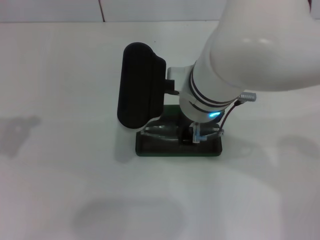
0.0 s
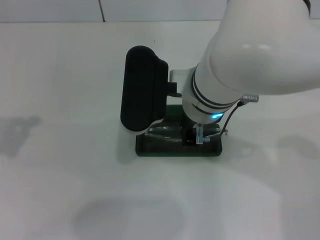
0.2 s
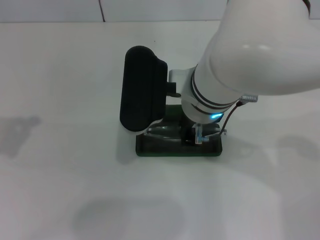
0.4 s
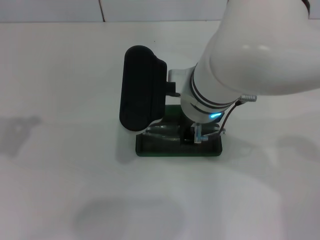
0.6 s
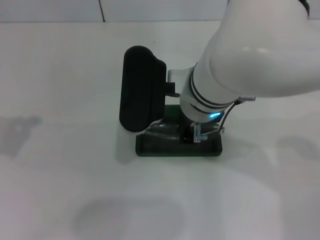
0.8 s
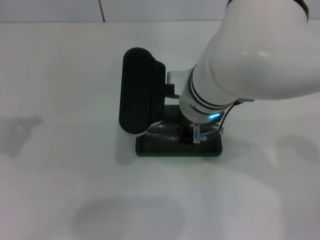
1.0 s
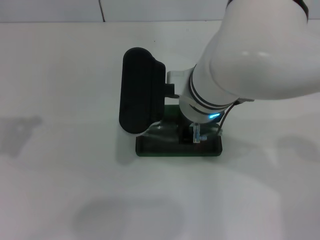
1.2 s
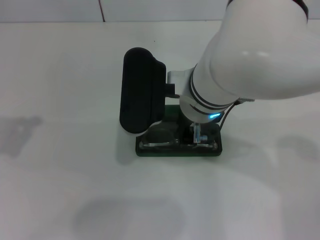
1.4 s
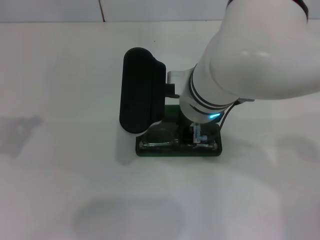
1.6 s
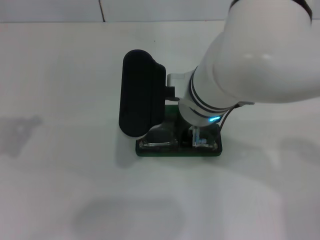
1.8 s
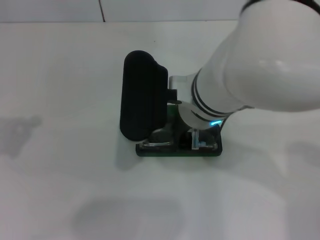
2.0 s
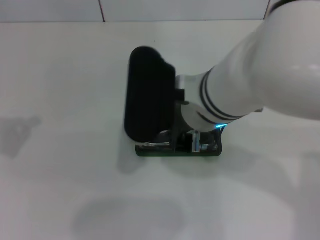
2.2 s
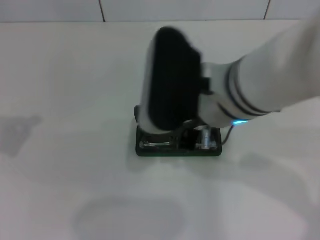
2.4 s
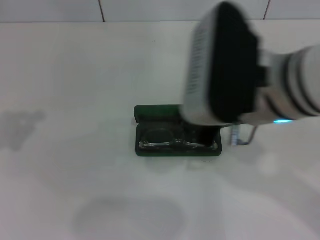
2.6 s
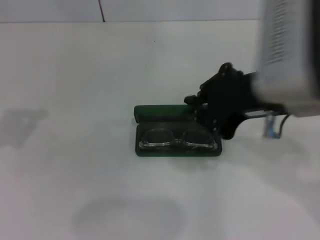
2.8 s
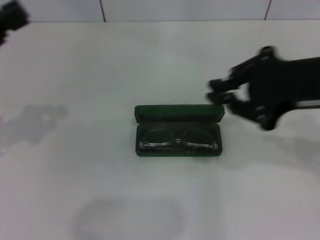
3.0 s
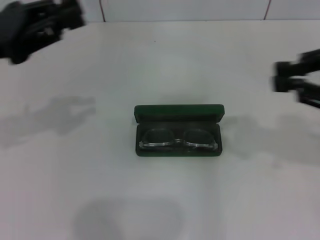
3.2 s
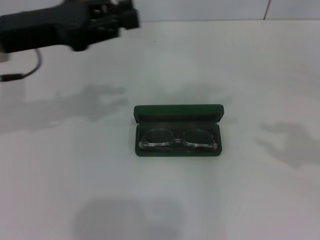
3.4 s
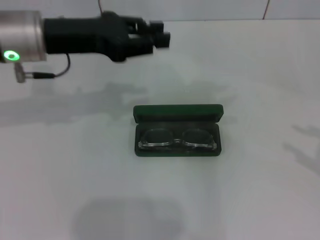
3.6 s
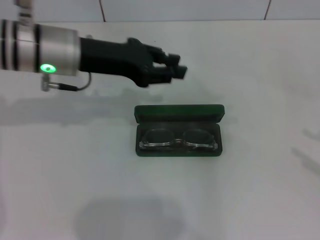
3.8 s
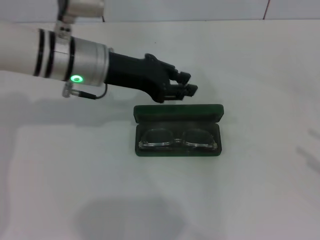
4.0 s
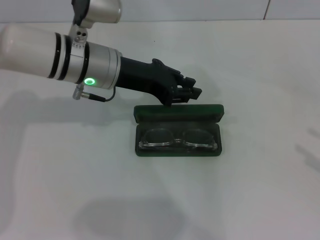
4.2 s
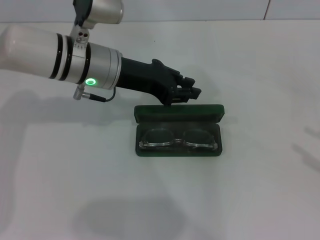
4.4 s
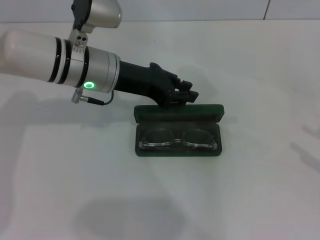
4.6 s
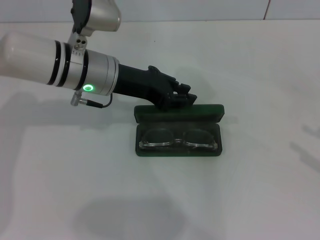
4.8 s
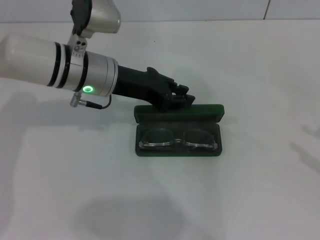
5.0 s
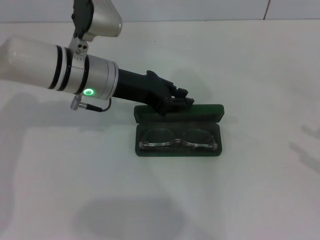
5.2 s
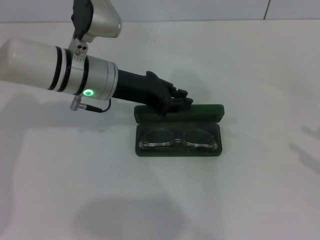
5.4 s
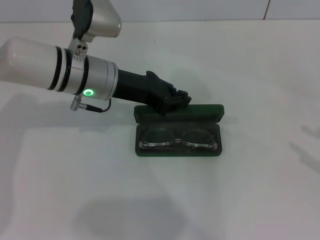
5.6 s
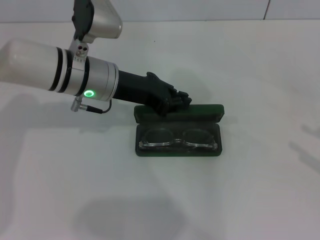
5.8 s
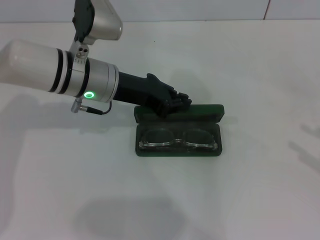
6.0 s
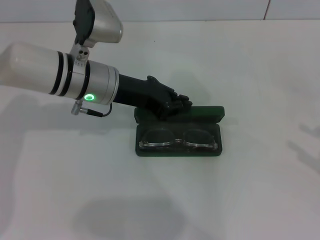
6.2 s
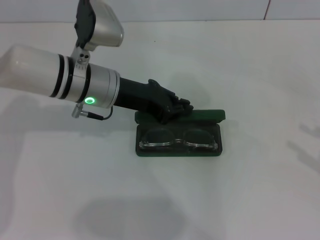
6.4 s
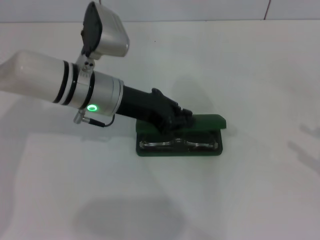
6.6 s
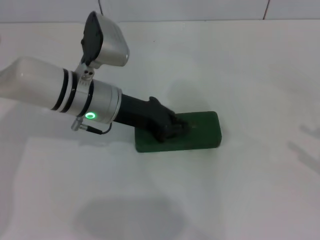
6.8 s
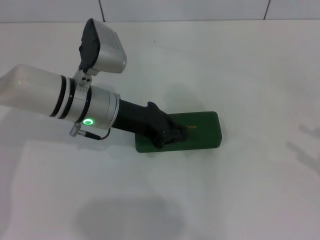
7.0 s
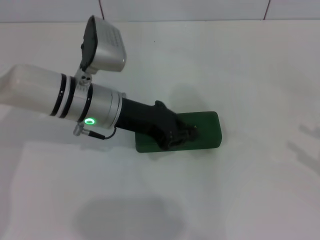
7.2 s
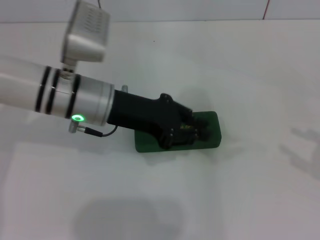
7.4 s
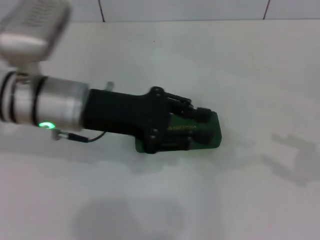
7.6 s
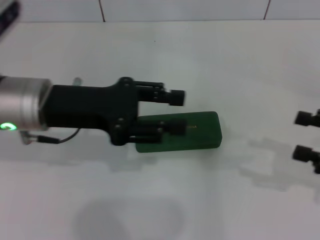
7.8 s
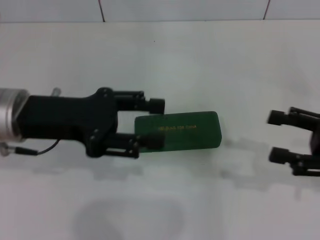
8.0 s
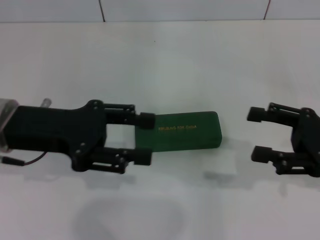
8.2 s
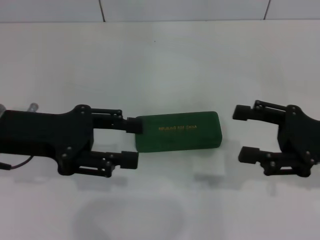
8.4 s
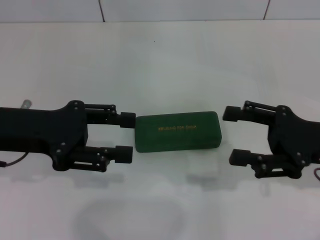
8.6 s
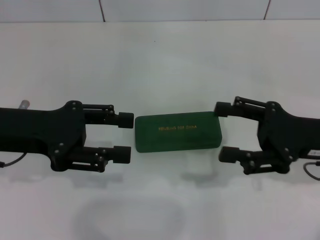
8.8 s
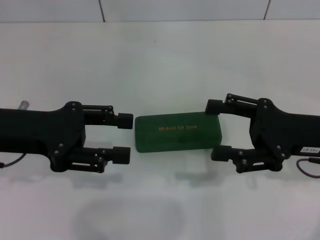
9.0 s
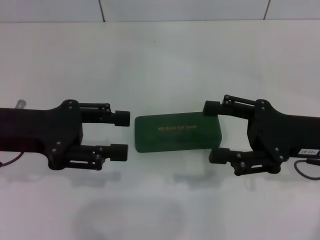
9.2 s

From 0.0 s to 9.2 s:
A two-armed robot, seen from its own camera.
Step, from 1.8 s to 7.0 s: Close the glasses case with your left hand.
From 0.0 s to 1.6 s: The two grippers keep their place.
From 1.6 s to 3.0 s: The left gripper ends up approximately 5 cm from where it was. The right gripper heads to the right and upward, covering approximately 20 cm.
From 3.0 s to 4.6 s: The right gripper moves to the right and downward, roughly 25 cm, and opens. The left gripper is displaced to the right and forward by approximately 20 cm.
From 4.6 s to 6.2 s: There are only small adjustments of the grippers.
From 6.2 s to 7.6 s: The left gripper is displaced backward by about 5 cm.
From 7.6 s to 9.2 s: The left gripper travels to the left by some 10 cm, and opens up; the right gripper shifts approximately 15 cm to the left and forward.

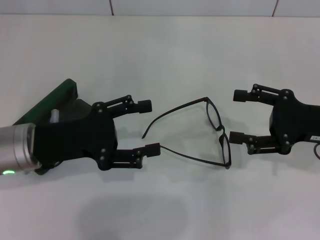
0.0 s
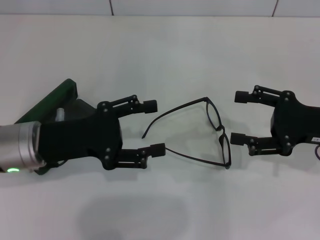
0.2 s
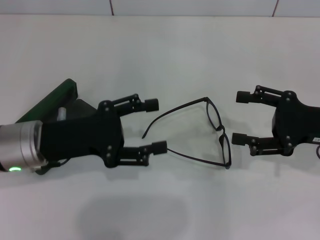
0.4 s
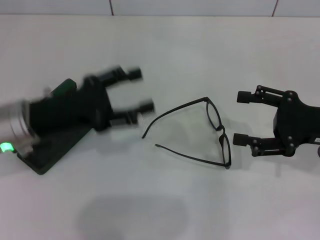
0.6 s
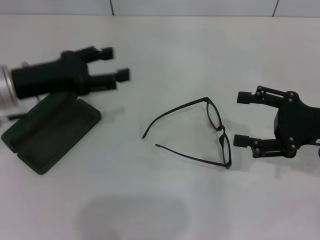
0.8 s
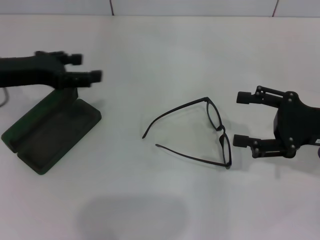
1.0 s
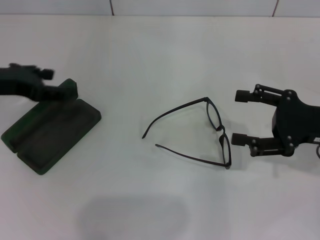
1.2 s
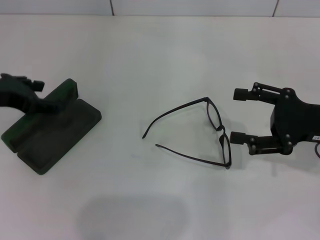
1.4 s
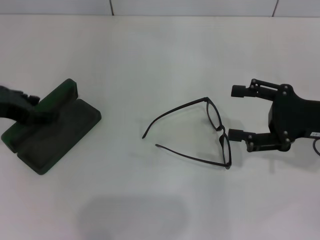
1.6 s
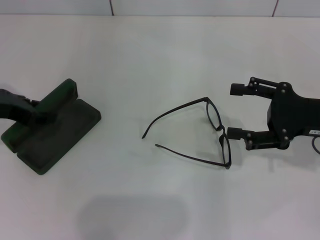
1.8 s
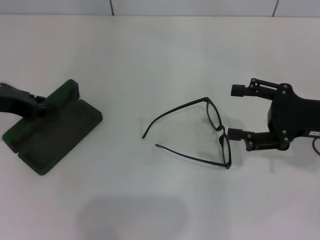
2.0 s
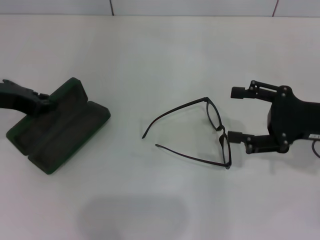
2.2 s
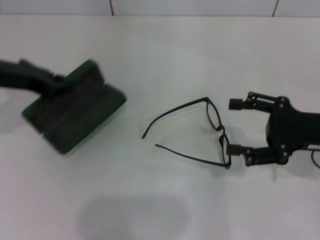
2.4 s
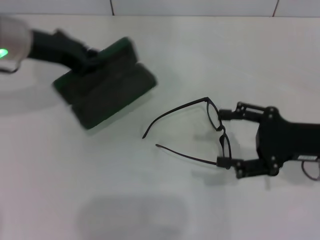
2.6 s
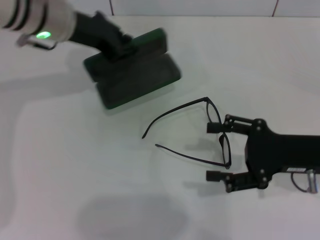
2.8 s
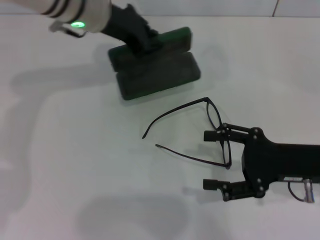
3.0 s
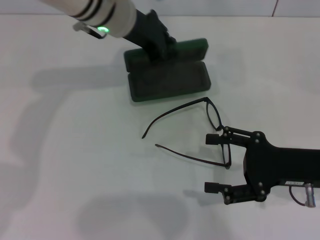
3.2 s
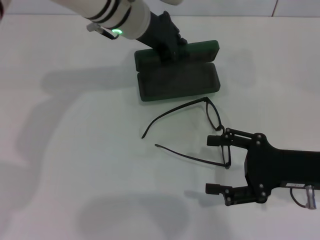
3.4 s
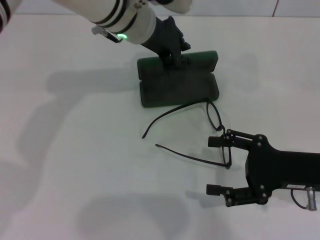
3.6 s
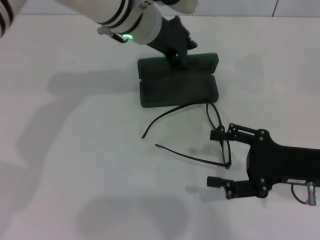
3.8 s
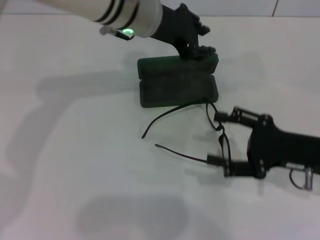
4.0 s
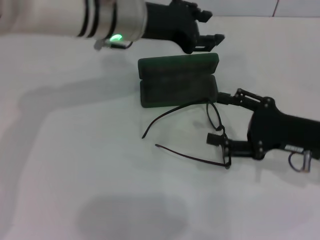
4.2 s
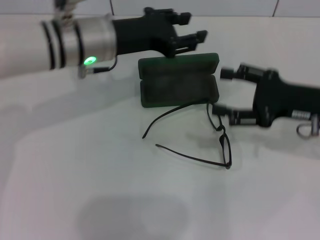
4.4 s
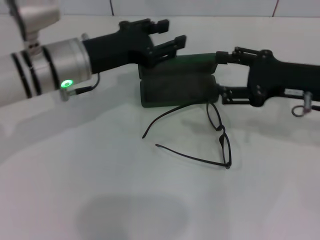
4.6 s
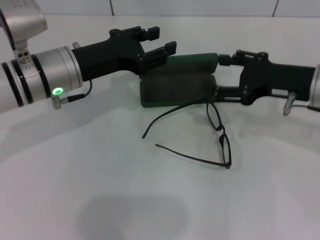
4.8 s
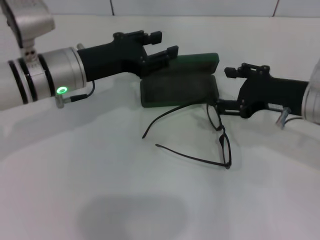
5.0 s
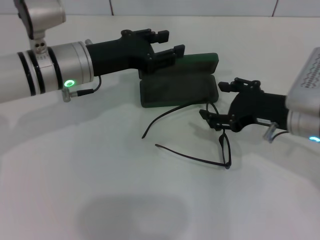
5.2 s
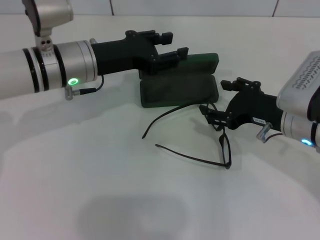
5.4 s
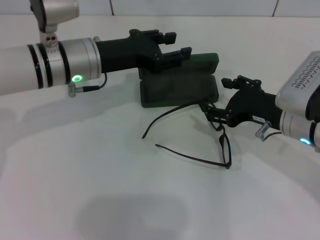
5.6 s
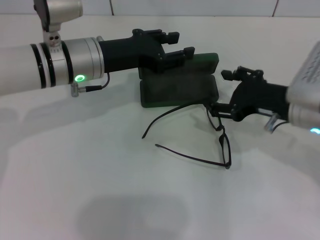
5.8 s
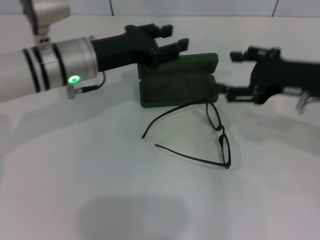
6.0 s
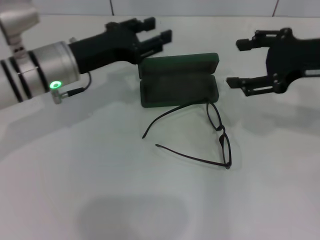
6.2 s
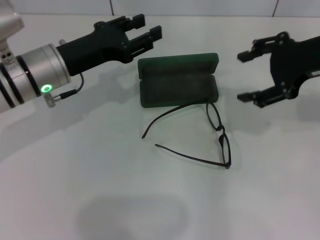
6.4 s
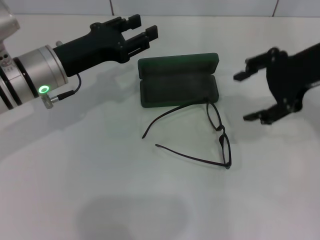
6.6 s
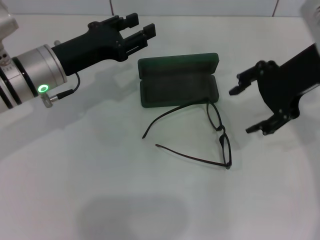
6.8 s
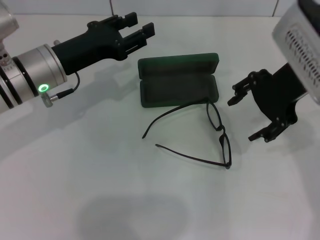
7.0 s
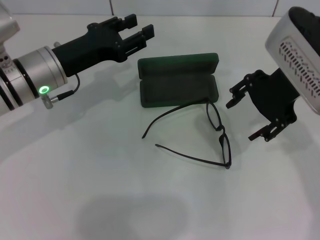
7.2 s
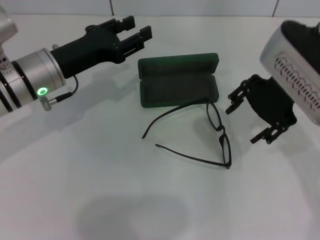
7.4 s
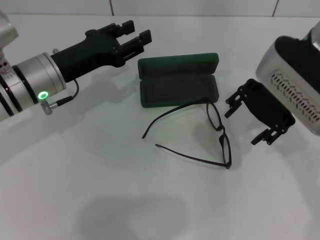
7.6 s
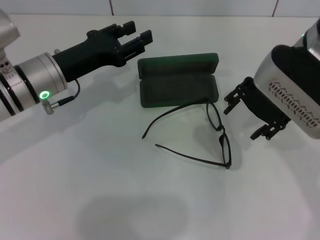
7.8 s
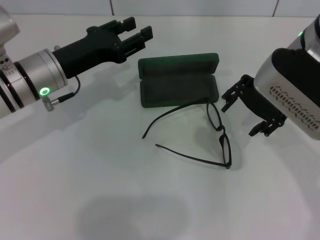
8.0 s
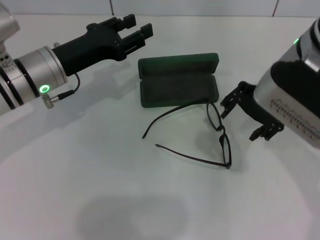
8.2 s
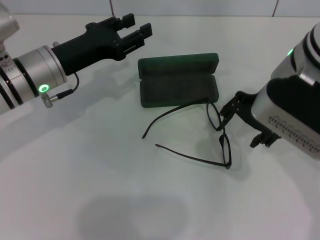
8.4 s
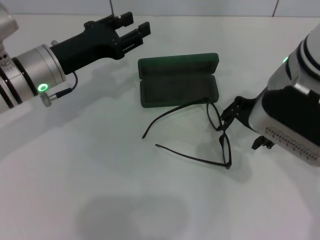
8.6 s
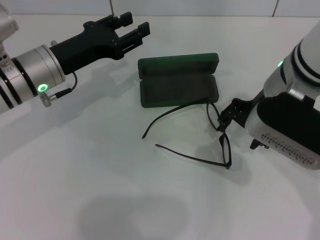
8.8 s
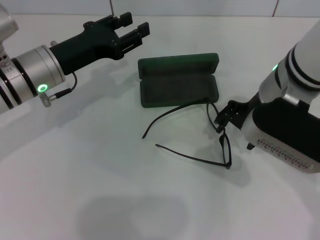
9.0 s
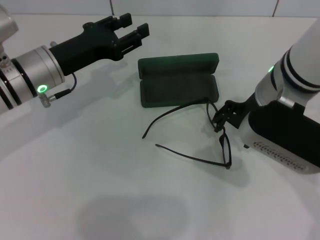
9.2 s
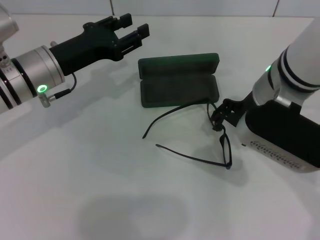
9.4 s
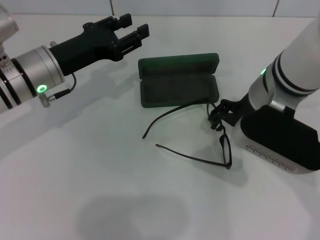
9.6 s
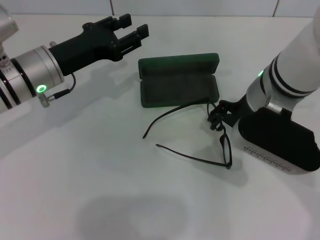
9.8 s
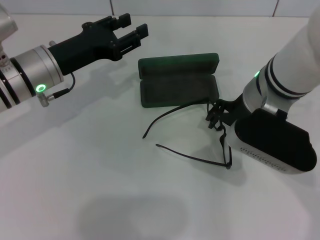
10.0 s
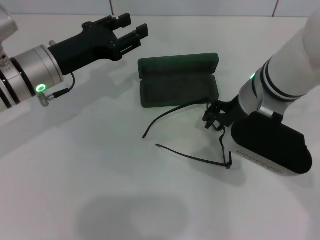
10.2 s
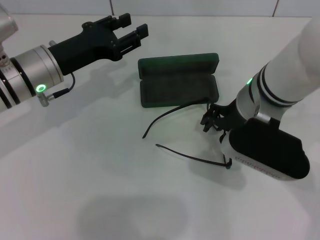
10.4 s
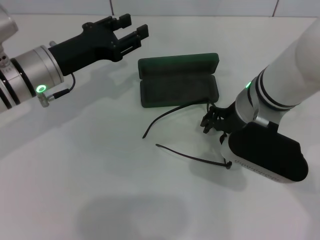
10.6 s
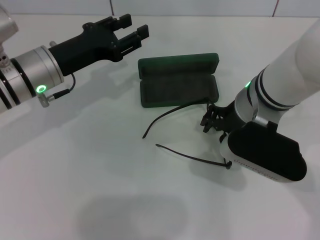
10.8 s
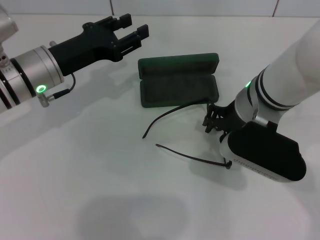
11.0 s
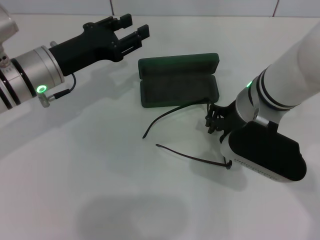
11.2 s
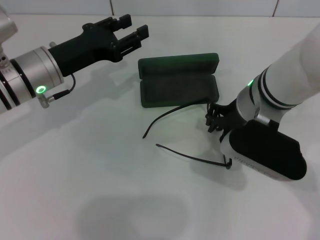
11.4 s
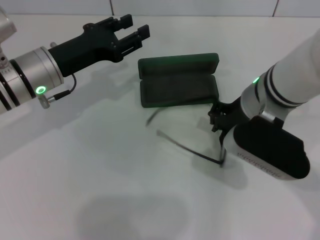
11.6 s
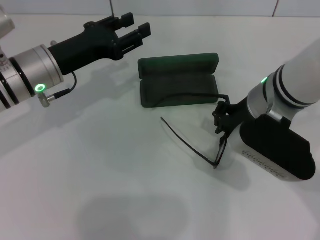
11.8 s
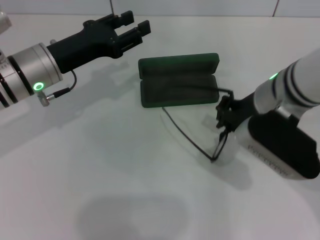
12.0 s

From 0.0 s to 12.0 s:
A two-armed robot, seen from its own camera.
Step, from 0.0 s to 1.8 s: Grab the glasses case with your left hand.
Step, from 2.0 s to 3.8 s: Place the glasses case in the center of the table with your left hand.
Step, from 4.0 s to 11.4 s: Grab the eyeglass frame with your right hand.
From 0.0 s to 1.6 s: The left gripper travels to the left and upward by approximately 10 cm.
From 1.6 s to 3.0 s: The right gripper changes place by some 5 cm. The left gripper is displaced to the right and forward by some 20 cm, and closes.
From 3.0 s to 4.4 s: The right gripper is displaced forward by approximately 5 cm, while the left gripper goes approximately 5 cm backward, and opens up.
From 4.4 s to 6.0 s: The right gripper changes place by approximately 5 cm.
From 6.0 s to 7.6 s: The left gripper shifts by about 5 cm; the right gripper shifts some 10 cm to the left and upward.
From 9.0 s to 10.4 s: The grippers stay close to where they were, moving slightly.
From 10.4 s to 12.0 s: The right gripper closes its fingers.

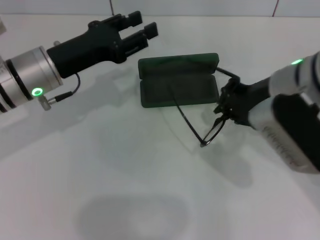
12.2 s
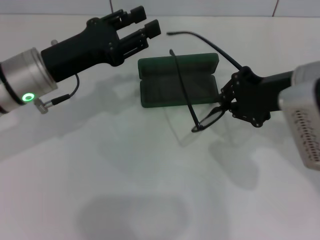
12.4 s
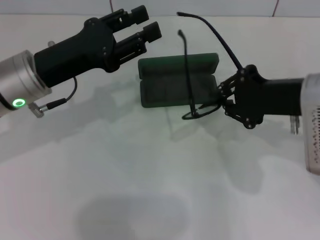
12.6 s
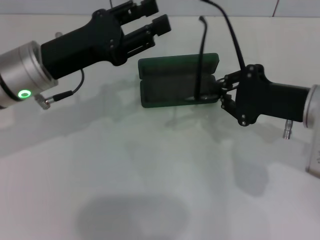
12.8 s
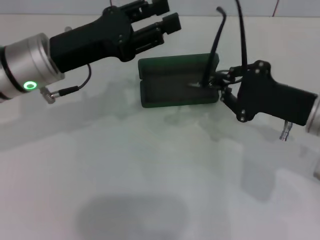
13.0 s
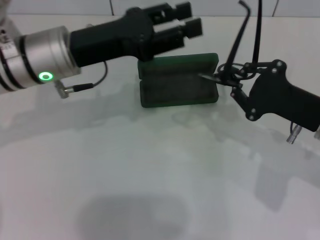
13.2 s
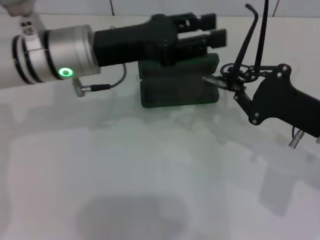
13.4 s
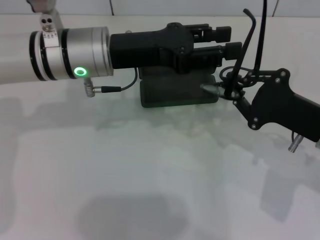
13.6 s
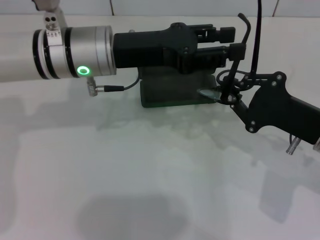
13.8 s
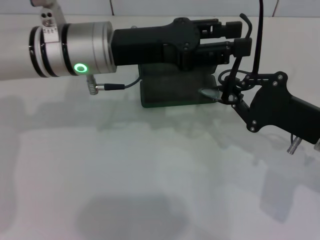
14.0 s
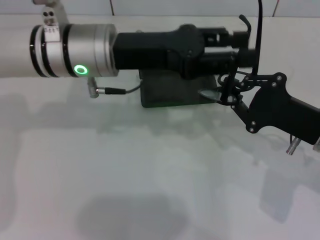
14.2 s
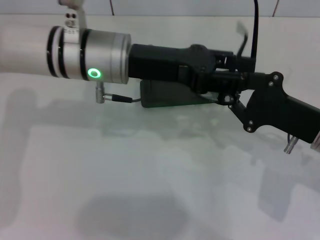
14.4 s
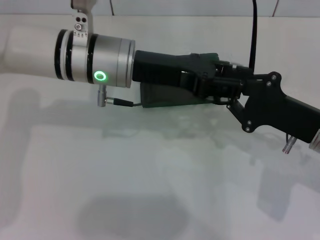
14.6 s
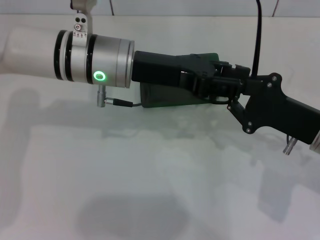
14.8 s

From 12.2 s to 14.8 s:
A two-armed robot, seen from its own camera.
From 12.2 s to 13.4 s: The left gripper moves to the right, roughly 5 cm, while the right gripper travels to the right and downward by roughly 10 cm.
